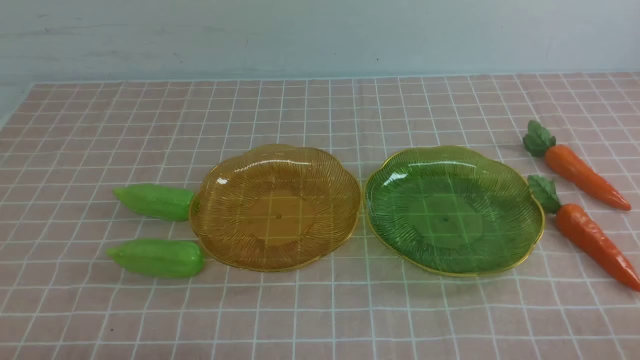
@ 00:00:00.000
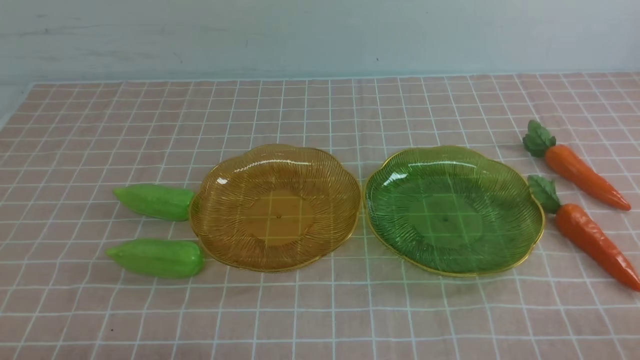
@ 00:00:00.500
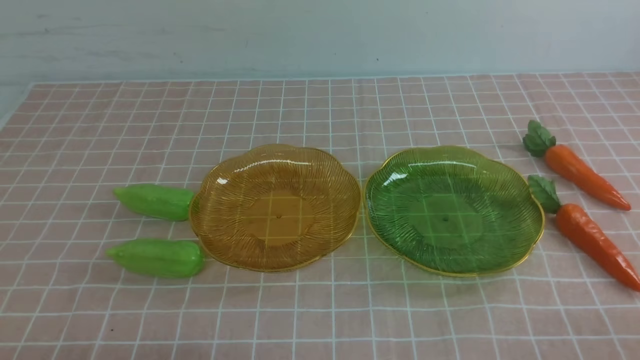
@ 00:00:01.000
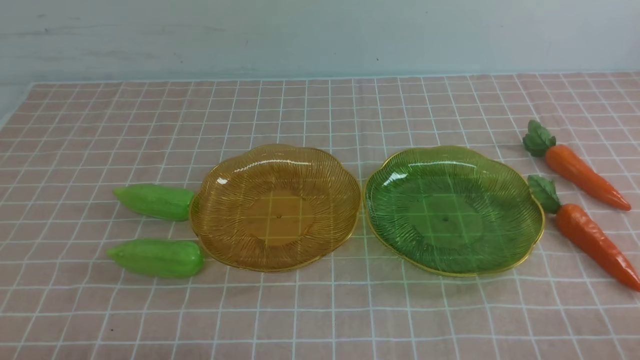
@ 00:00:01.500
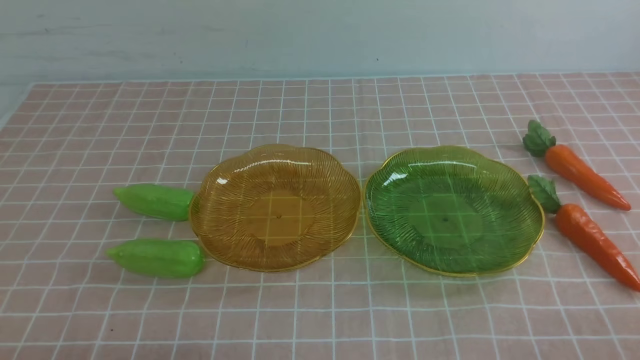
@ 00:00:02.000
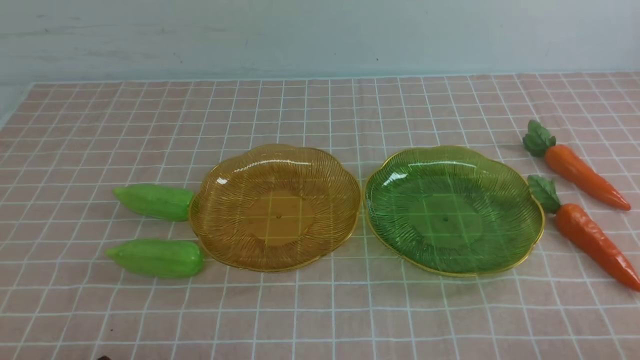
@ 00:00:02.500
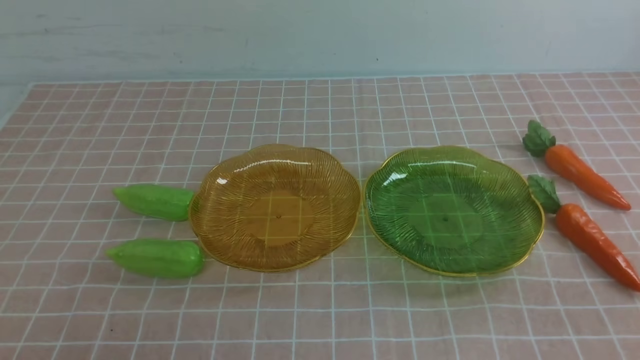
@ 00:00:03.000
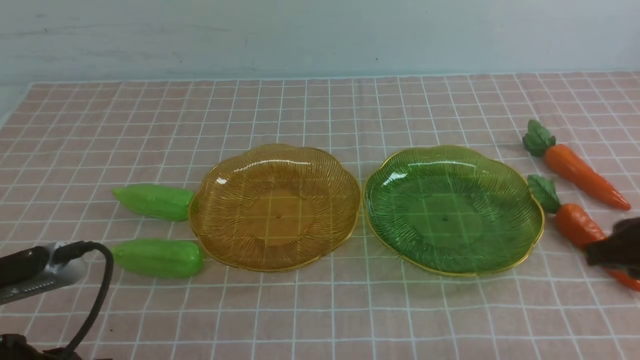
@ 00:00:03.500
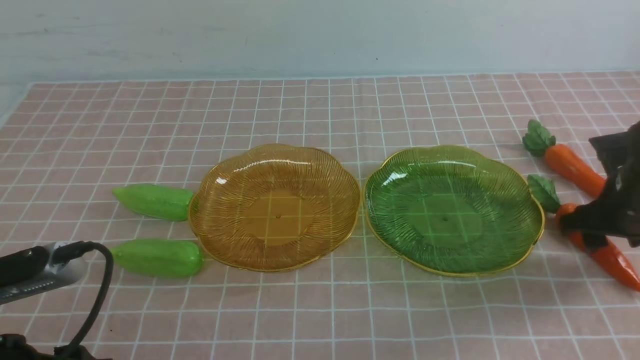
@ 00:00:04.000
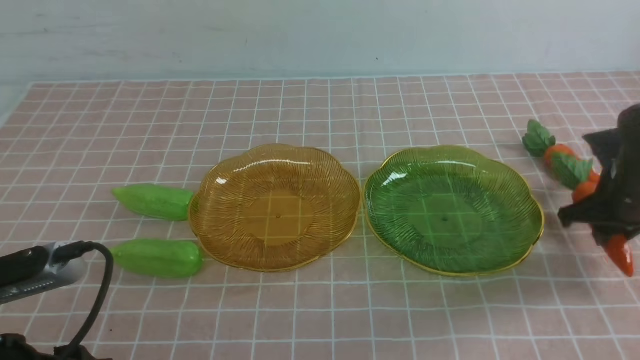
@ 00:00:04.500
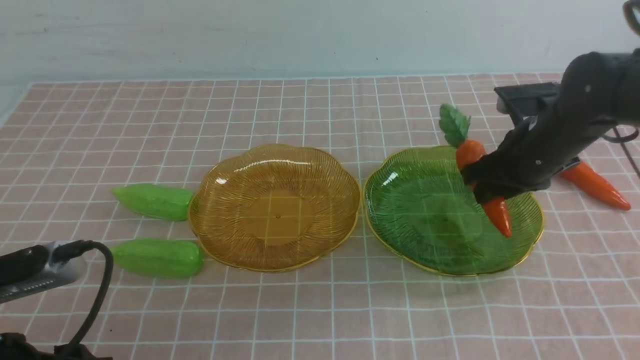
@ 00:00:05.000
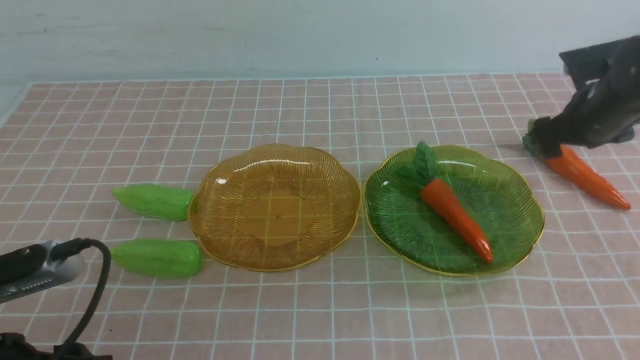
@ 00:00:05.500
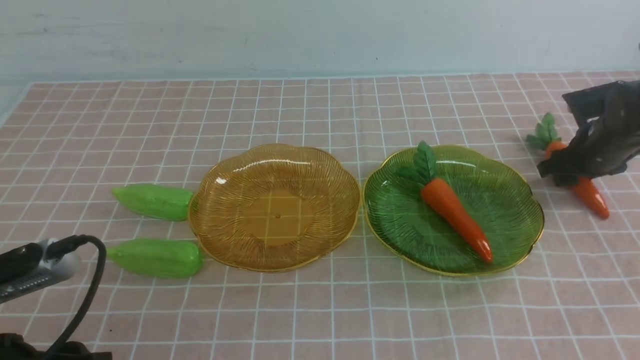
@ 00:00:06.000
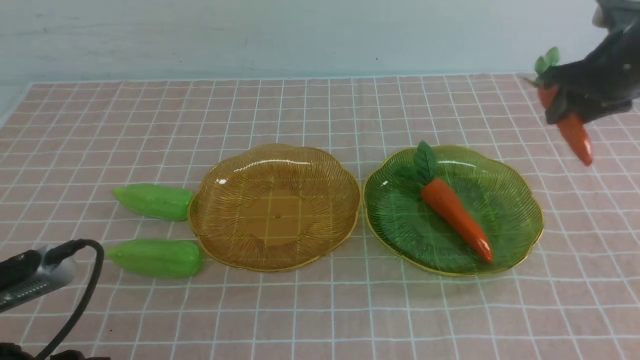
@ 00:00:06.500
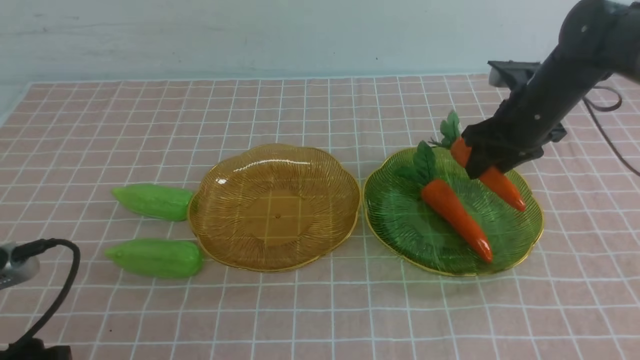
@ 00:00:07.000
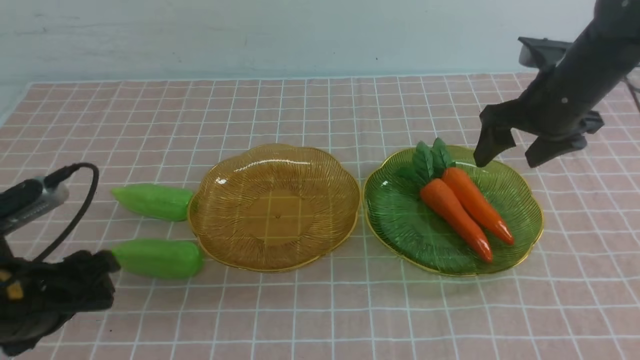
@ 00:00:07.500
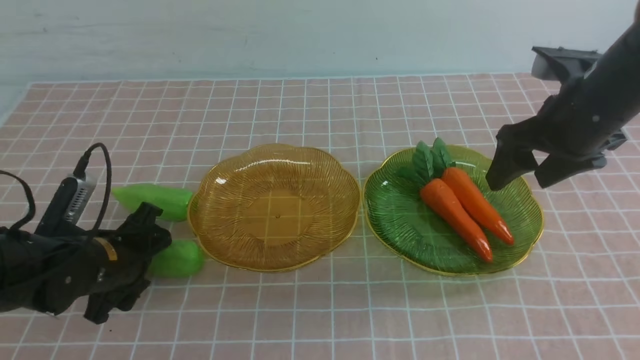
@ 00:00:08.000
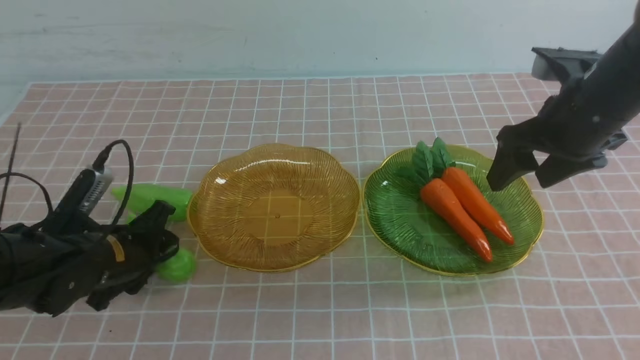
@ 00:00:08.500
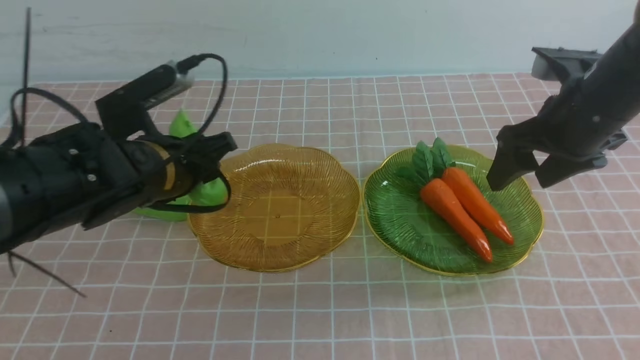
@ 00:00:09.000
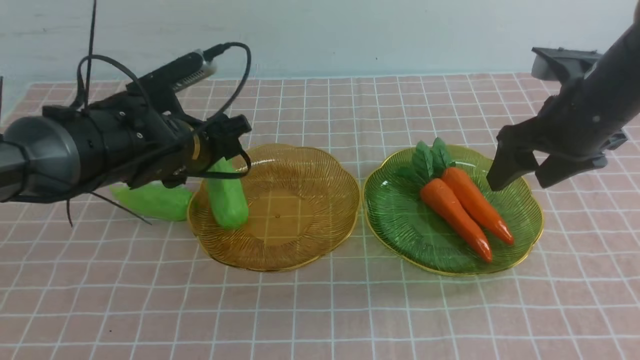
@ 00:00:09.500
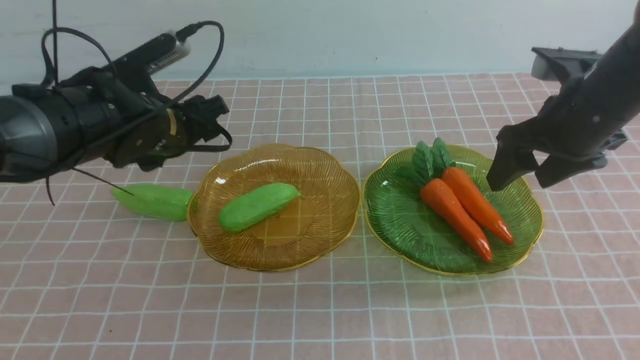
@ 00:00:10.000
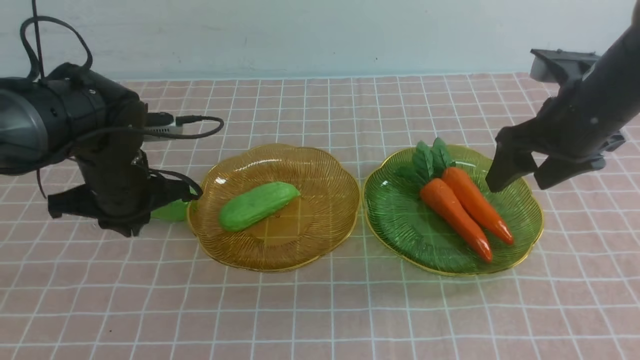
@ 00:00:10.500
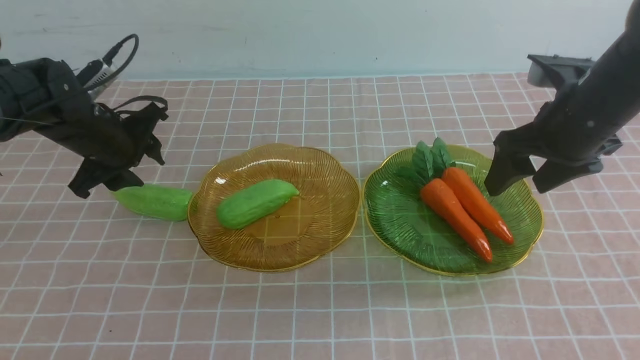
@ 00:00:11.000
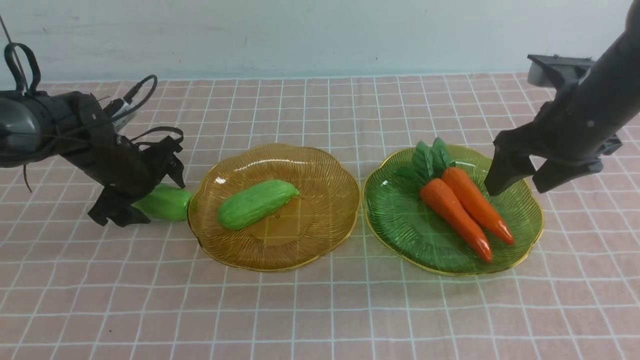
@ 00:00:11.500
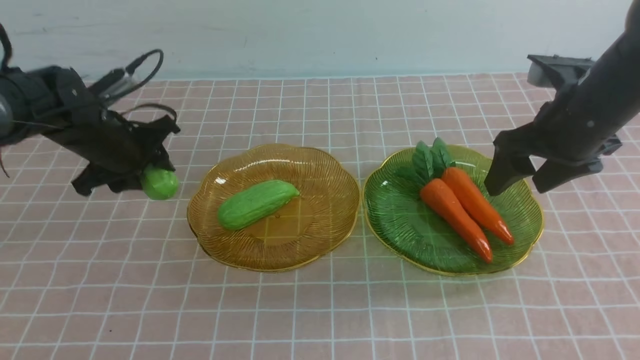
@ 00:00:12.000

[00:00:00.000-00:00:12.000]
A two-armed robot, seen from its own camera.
Step, 00:00:00.000 to 00:00:07.000: use the right arm to grab a carrot and put it into the right plate.
Step, 00:00:07.500 to 00:00:09.500: use the left arm to grab a chayote and put it into the left plate.
00:00:02.000 to 00:00:04.000: The right gripper goes some 30 cm forward, and opens its fingers; the left gripper shifts approximately 10 cm upward and forward, and opens.
00:00:04.000 to 00:00:06.000: The right gripper is displaced forward by about 15 cm.
00:00:06.000 to 00:00:08.000: The right gripper moves upward, to the left and backward, approximately 20 cm; the left gripper travels forward and downward by roughly 20 cm.
00:00:08.000 to 00:00:10.000: The left gripper goes roughly 15 cm upward and forward.
00:00:10.000 to 00:00:12.000: The left gripper closes and opens again.

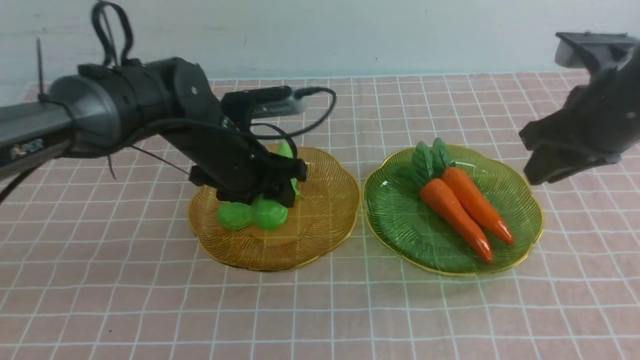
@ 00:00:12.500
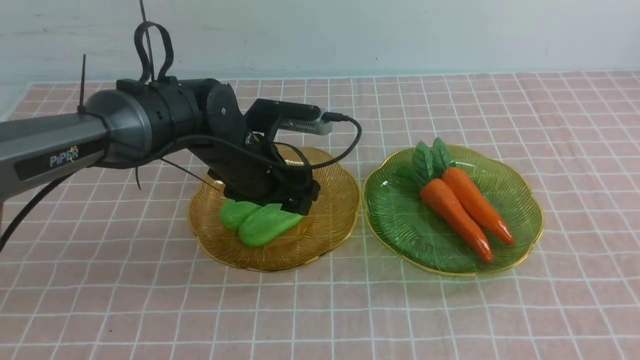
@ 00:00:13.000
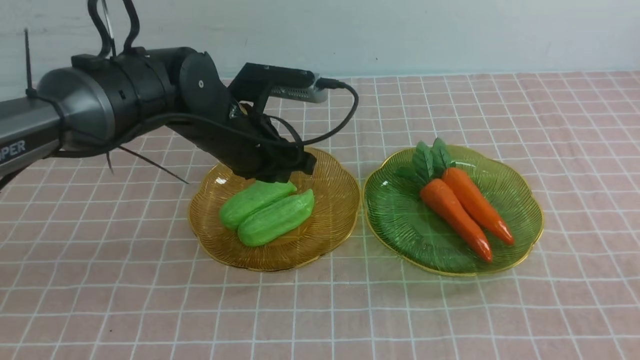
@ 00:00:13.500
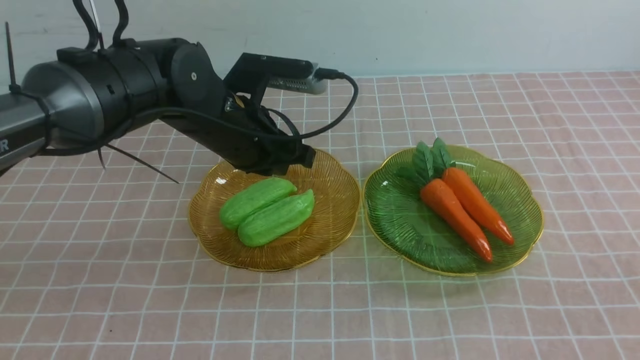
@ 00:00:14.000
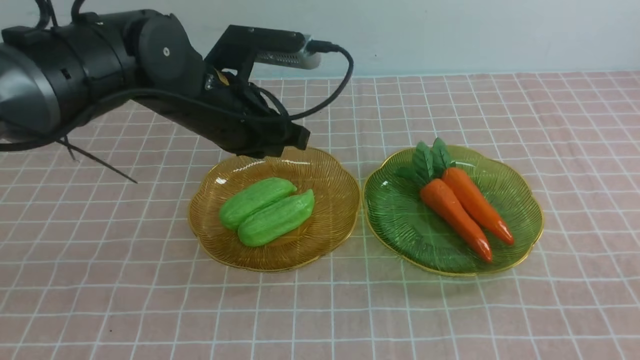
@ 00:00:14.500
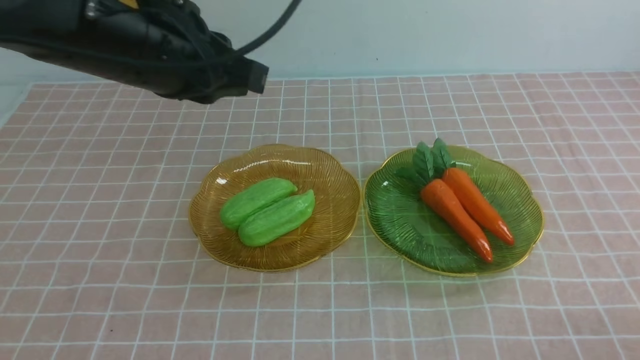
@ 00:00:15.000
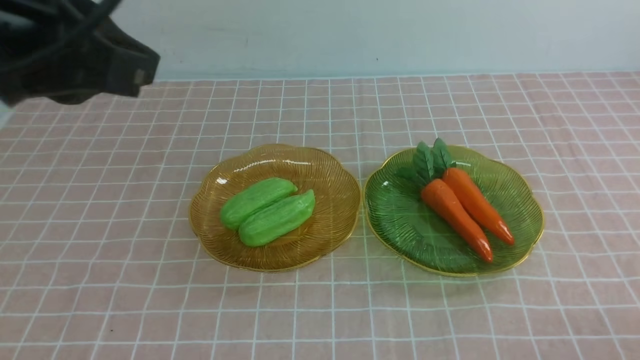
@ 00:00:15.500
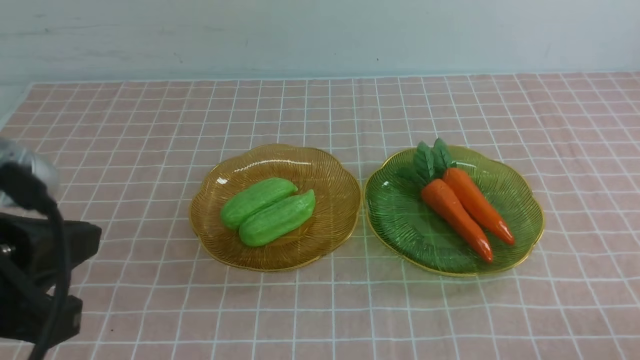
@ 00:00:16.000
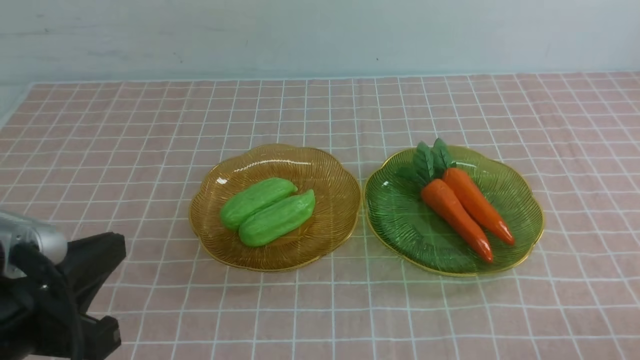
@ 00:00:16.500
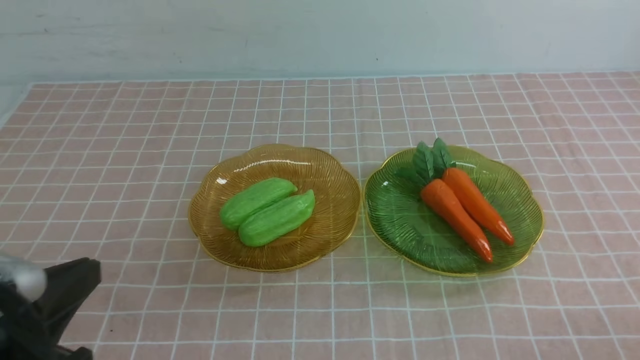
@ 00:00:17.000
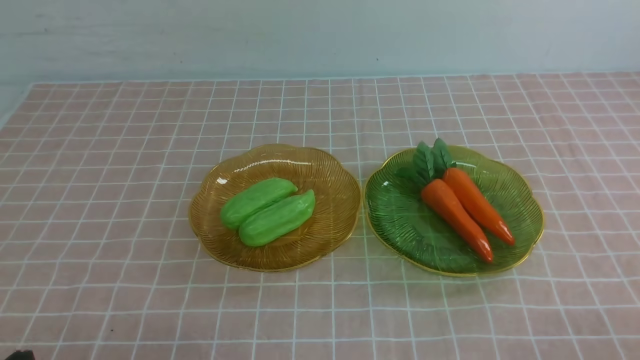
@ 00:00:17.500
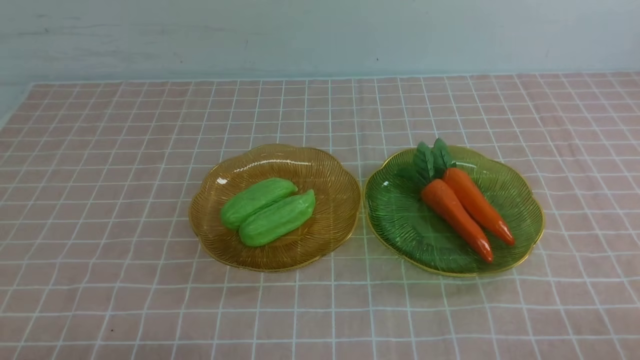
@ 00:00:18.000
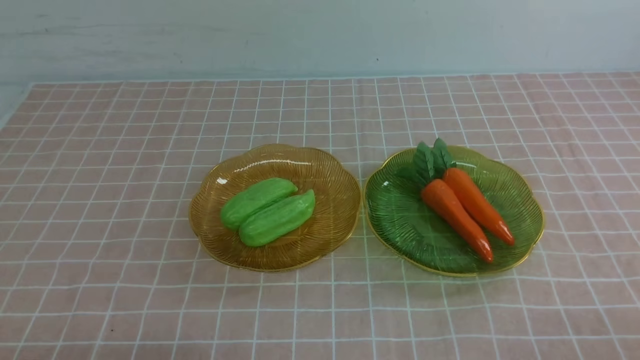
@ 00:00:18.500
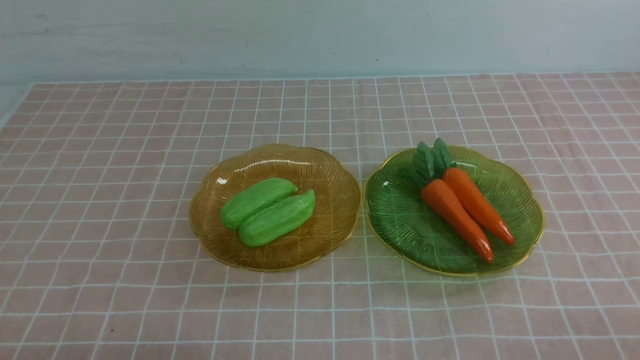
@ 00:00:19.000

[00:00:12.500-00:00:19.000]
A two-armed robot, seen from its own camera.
00:00:12.500 to 00:00:14.500: The left gripper travels upward and backward by some 15 cm, and closes. The right gripper is displaced backward and downward by approximately 30 cm.
00:00:14.500 to 00:00:17.000: The left gripper shifts roughly 30 cm backward, downward and to the left.
00:00:17.000 to 00:00:19.000: The grippers move only a little.
